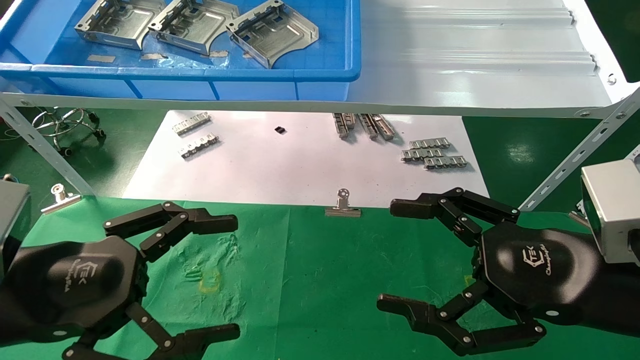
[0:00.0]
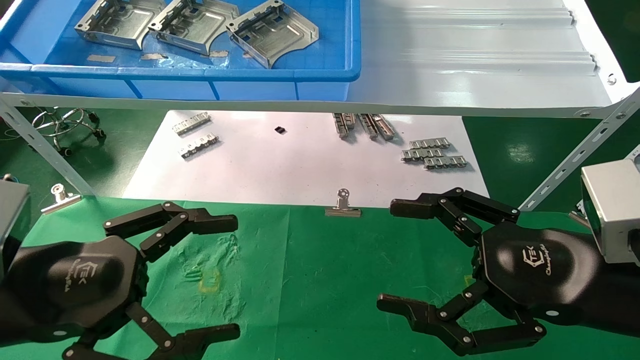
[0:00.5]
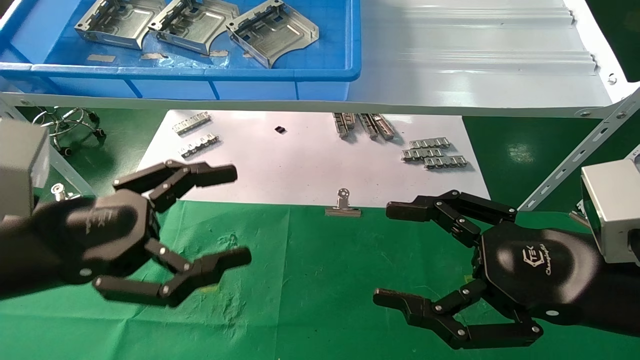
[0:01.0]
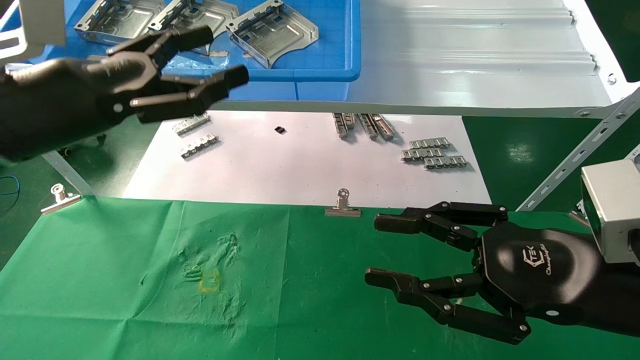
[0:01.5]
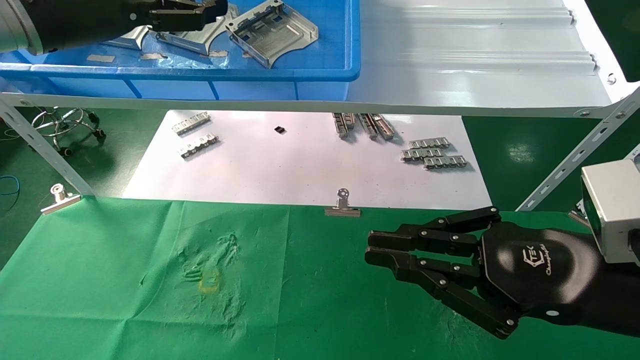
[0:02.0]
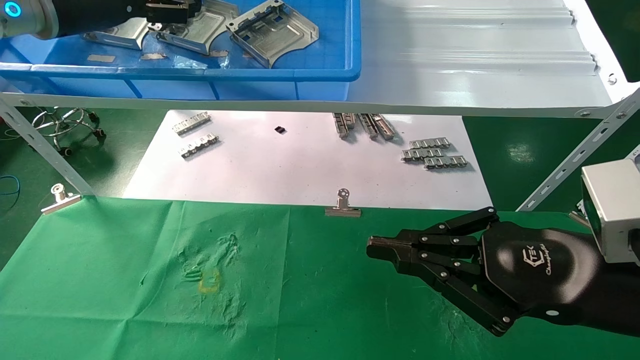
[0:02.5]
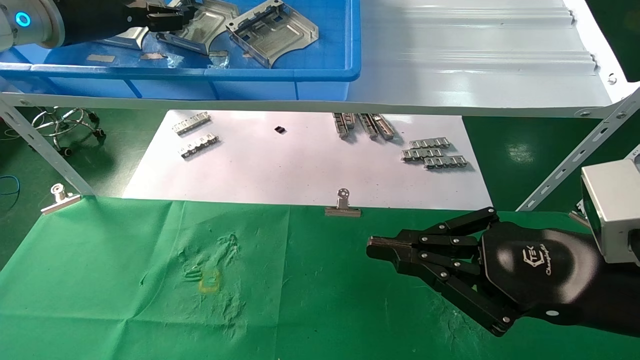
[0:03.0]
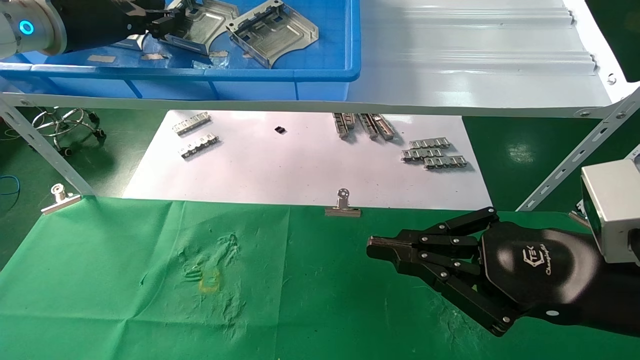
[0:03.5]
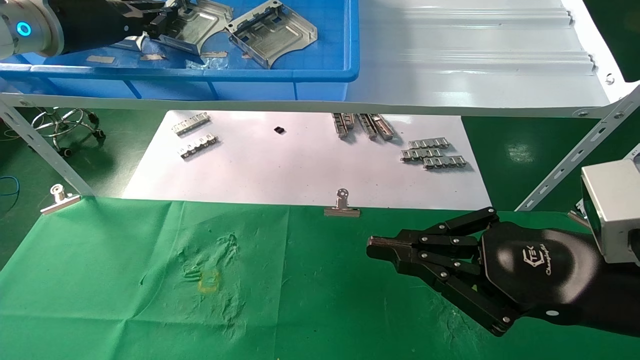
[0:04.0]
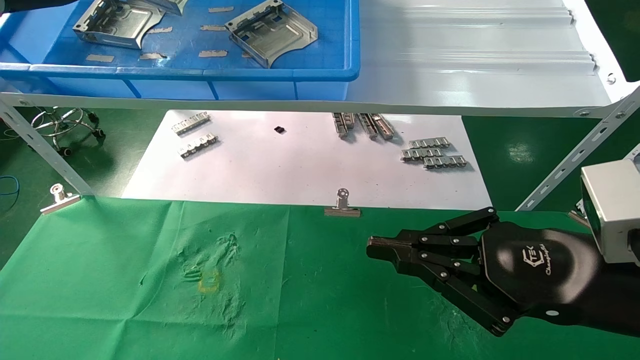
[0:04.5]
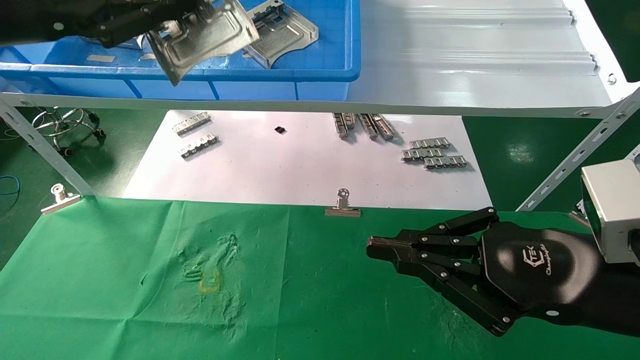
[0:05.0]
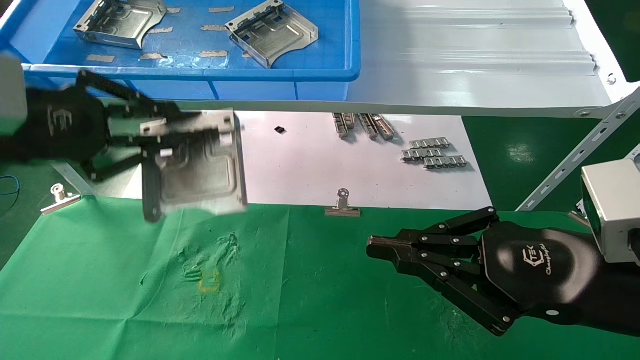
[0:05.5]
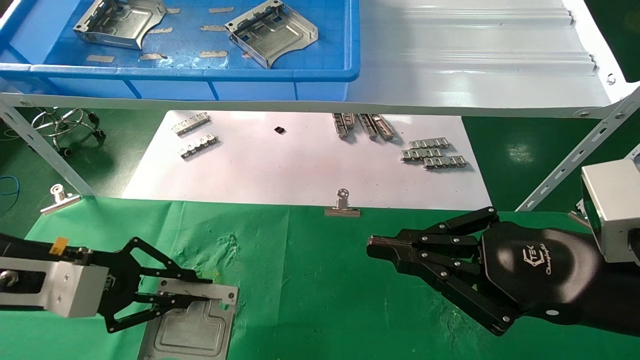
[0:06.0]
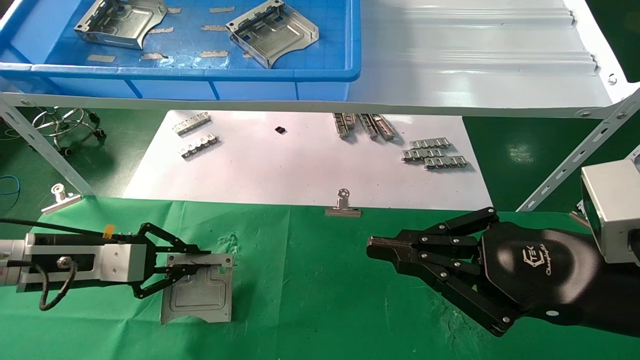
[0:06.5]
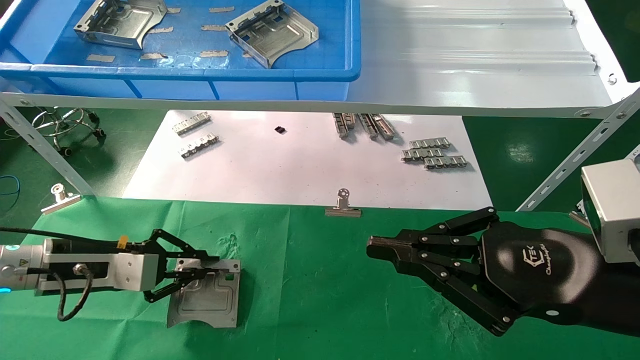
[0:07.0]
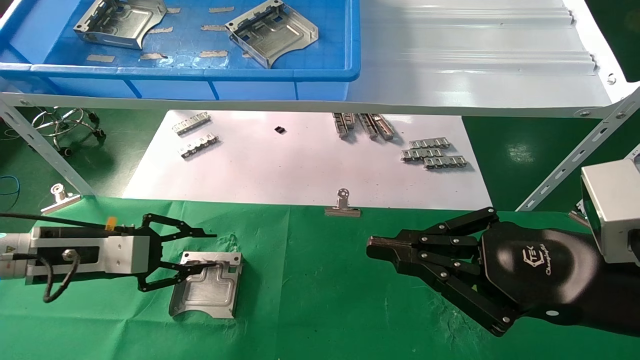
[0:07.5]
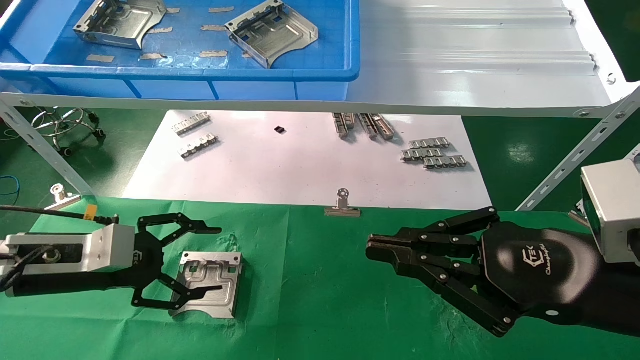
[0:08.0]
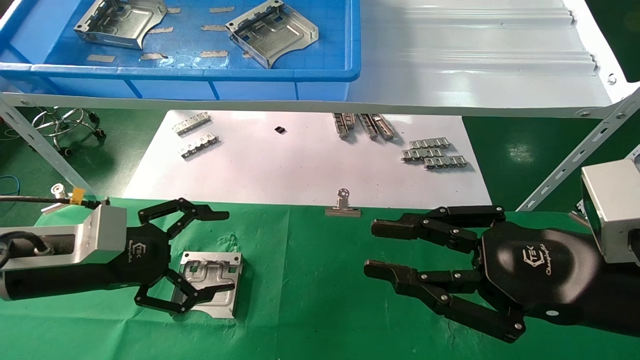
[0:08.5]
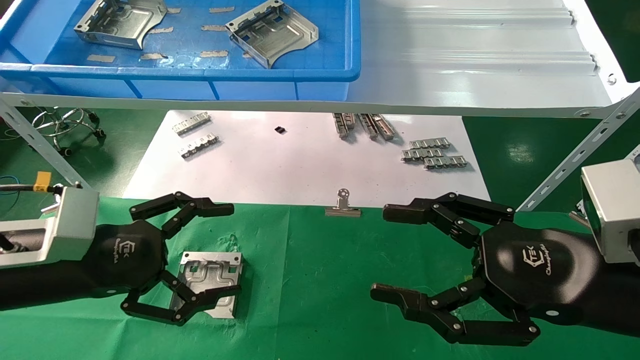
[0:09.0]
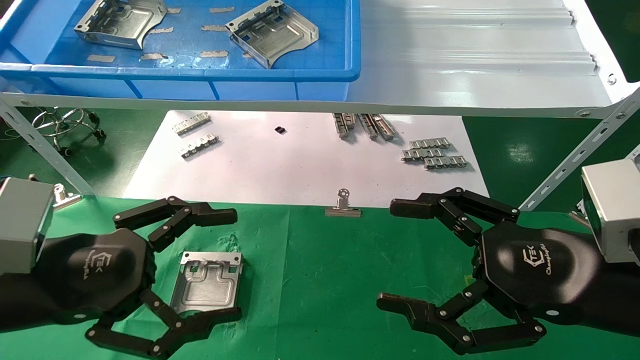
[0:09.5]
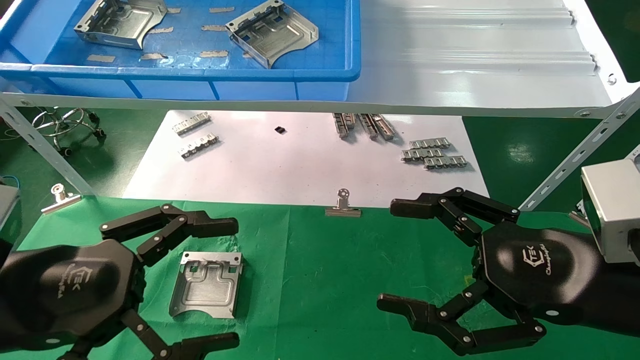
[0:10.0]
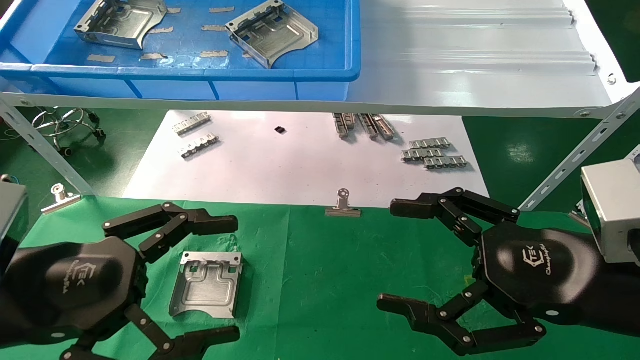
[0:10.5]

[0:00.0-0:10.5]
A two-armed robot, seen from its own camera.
Task of the whole recording: use the mechanical arm to pick up the parts and place them on the table.
Step, 0:01.0 to 0:03.5: Pick up the hard drive bracket from the feeding area.
Step, 0:04.0 to 0:07.0: Place the hard drive bracket into the box.
0:00.0 to 0:02.0: The left gripper goes roughly 30 cm upward and forward, while the right gripper closes its fingers.
0:02.0 to 0:04.0: The left gripper travels forward by some 5 cm, and closes.
0:04.0 to 0:06.5: The left gripper moves downward, some 30 cm.
0:06.5 to 0:08.5: The left gripper moves approximately 5 cm, and opens.
0:08.5 to 0:10.5: The right gripper opens; the left gripper is displaced backward by some 10 cm.
